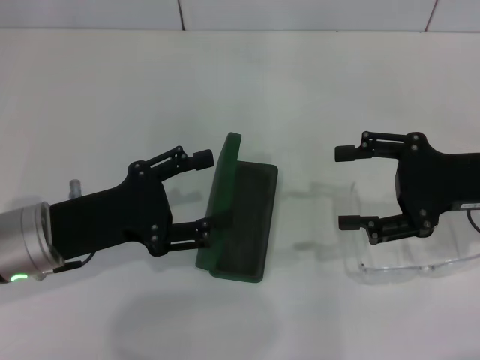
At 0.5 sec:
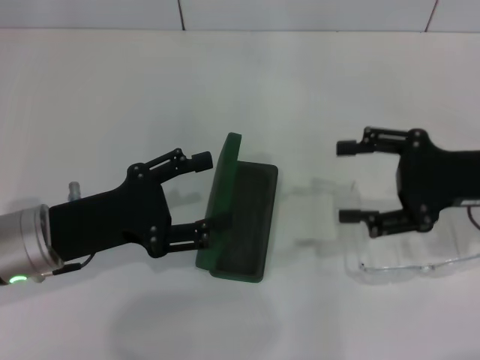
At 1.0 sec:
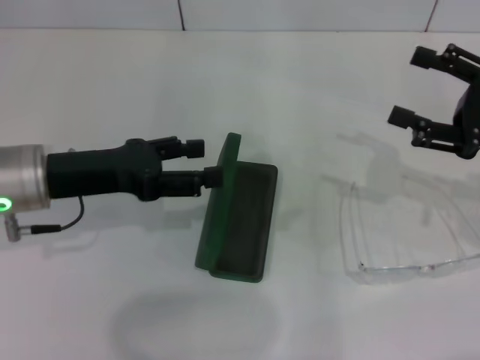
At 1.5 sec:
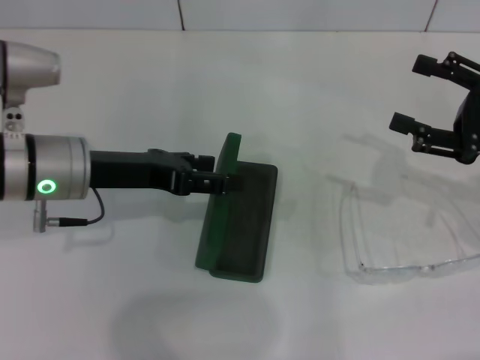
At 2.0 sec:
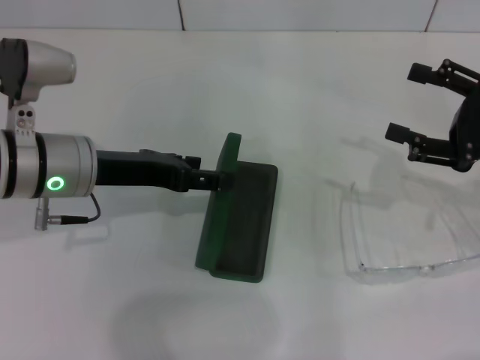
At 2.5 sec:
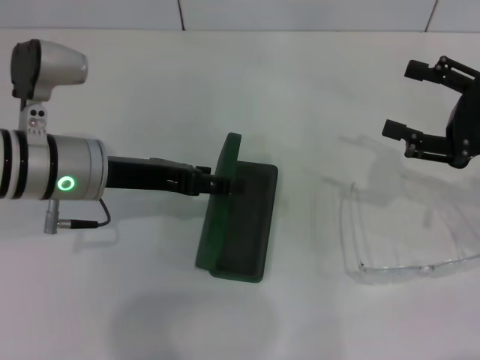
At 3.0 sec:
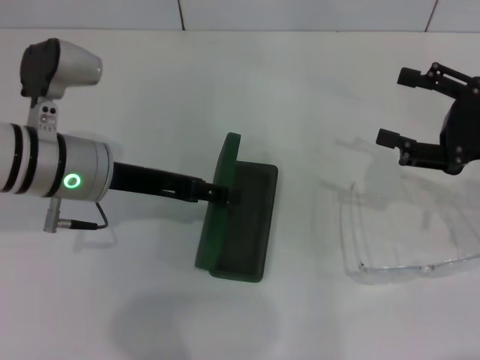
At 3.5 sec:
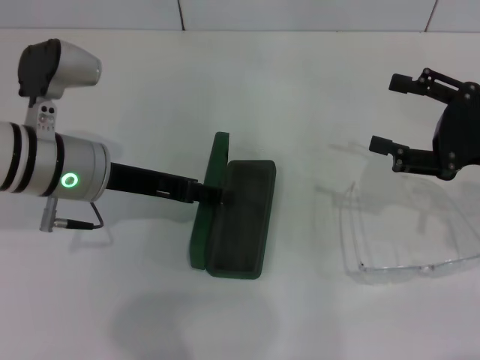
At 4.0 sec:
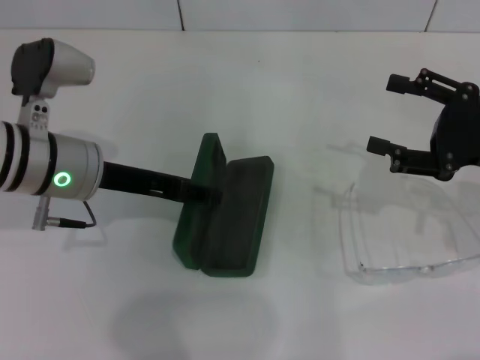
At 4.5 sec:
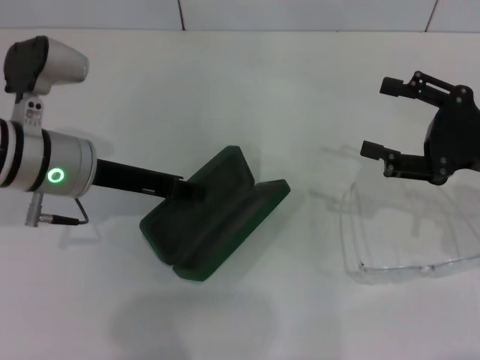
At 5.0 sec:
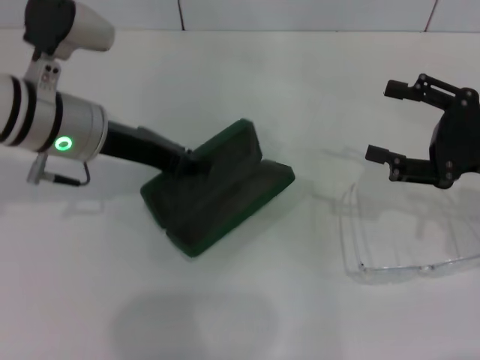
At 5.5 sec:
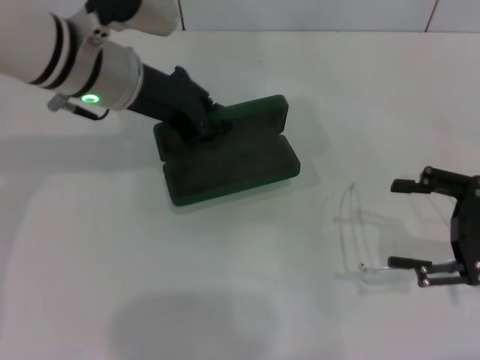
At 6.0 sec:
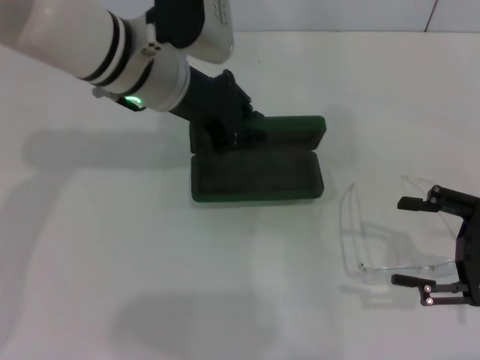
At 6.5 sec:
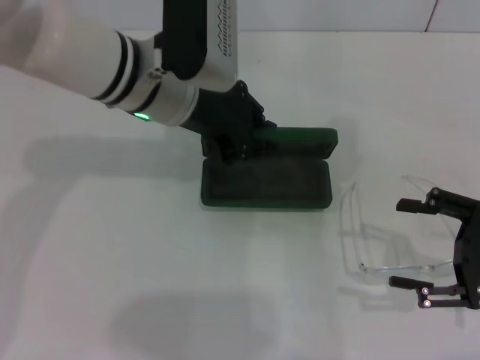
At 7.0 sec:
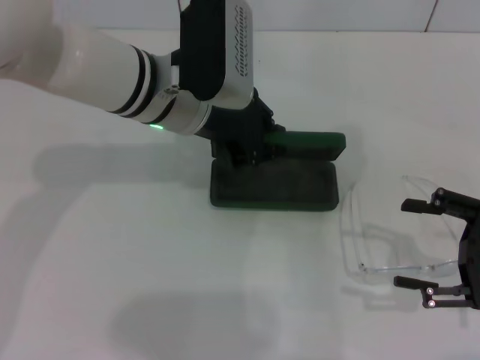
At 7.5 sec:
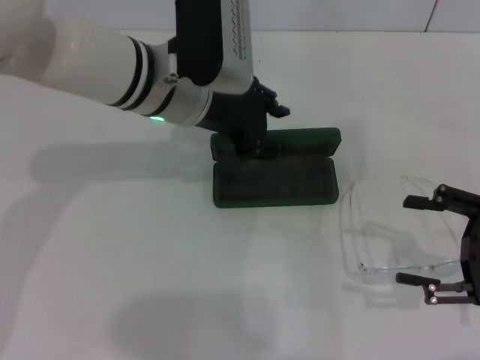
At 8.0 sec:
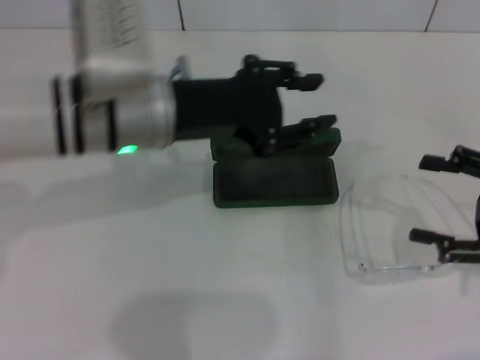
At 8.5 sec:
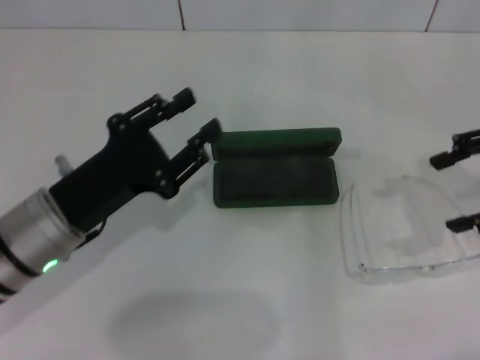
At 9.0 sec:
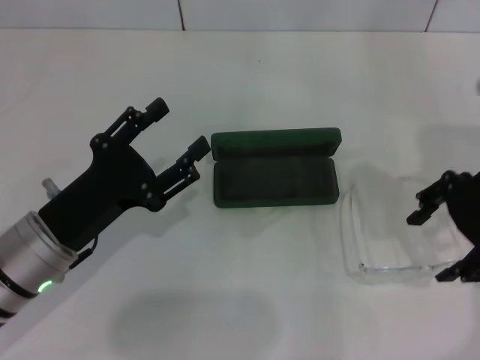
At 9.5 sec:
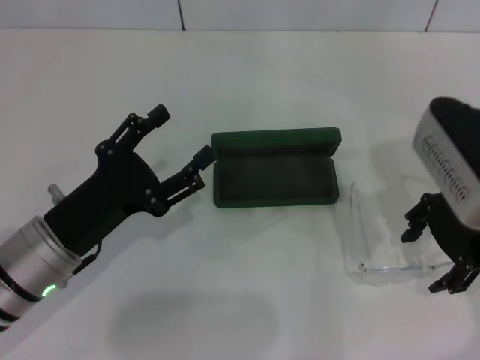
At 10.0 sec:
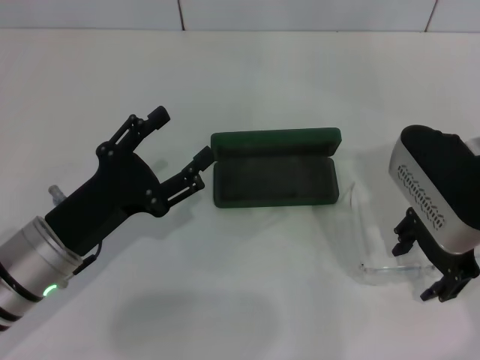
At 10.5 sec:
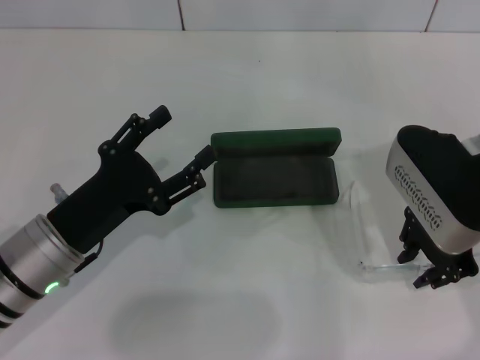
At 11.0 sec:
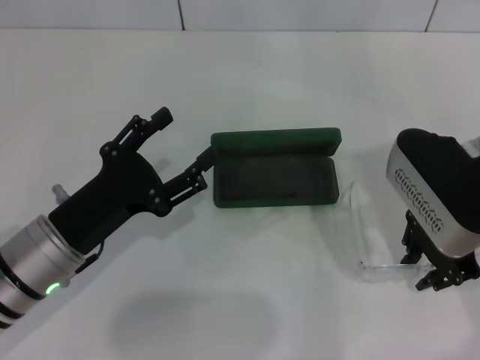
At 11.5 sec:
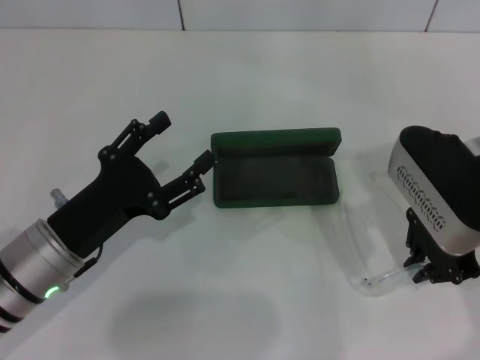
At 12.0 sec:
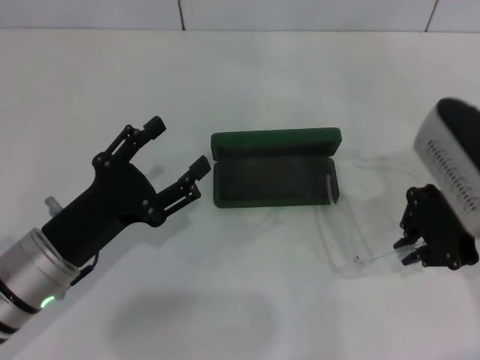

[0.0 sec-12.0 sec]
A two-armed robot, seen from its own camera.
Step, 0.0 sec to 4.0 sec: Grab the glasses case with your left hand.
Step, 4.5 sec to 7.0 sec: Place the glasses case in the center of the table with your left hand.
Step, 7.5 sec to 11.5 sec: Grab the eyeglass frame with your right hand.
0.0 sec to 2.0 sec: The left gripper heads forward, covering approximately 5 cm.
2.0 sec to 4.0 sec: The grippers move only a little.
4.0 sec to 6.0 sec: The right gripper moves backward, roughly 5 cm, while the left gripper is displaced to the right, upward and forward by roughly 10 cm, and closes.
6.0 sec to 8.0 sec: The left gripper goes roughly 5 cm backward, and opens up.
8.0 sec to 10.0 sec: The left gripper goes approximately 15 cm downward, backward and to the left, and opens up. Meanwhile the right gripper travels to the left and forward by roughly 15 cm.
10.0 sec to 12.0 sec: The right gripper closes its fingers.

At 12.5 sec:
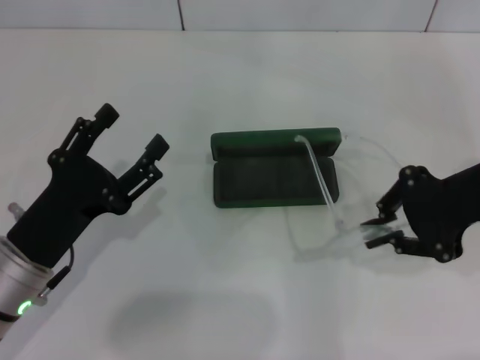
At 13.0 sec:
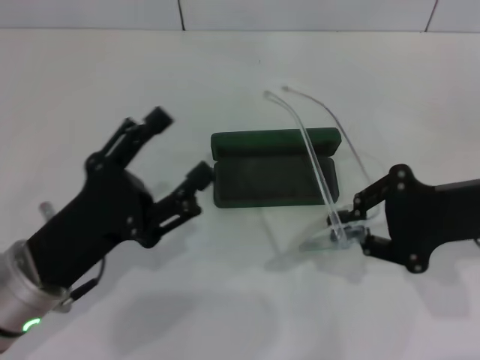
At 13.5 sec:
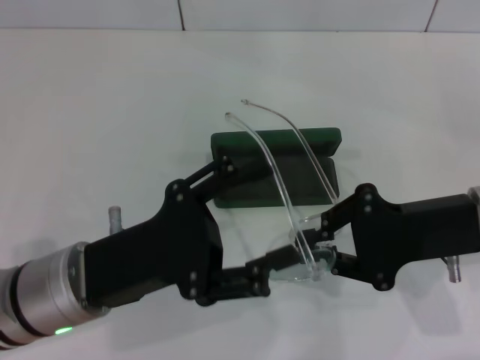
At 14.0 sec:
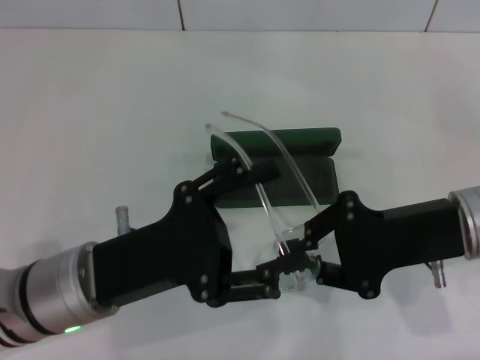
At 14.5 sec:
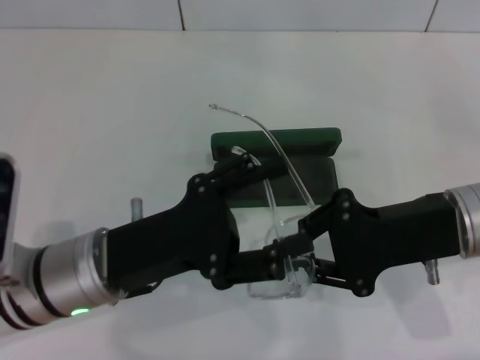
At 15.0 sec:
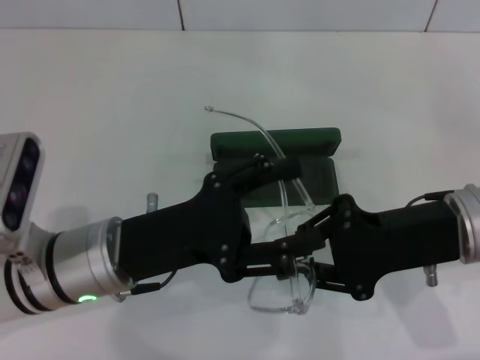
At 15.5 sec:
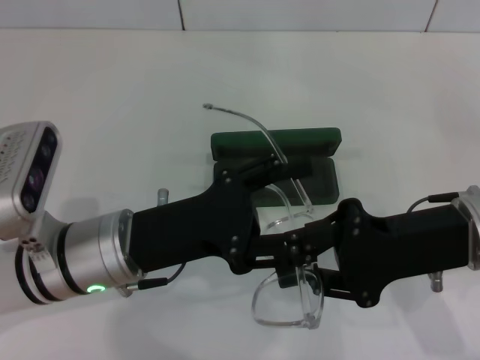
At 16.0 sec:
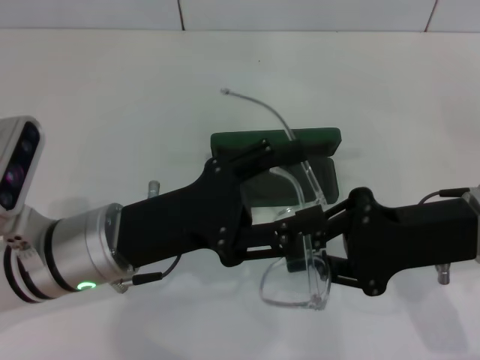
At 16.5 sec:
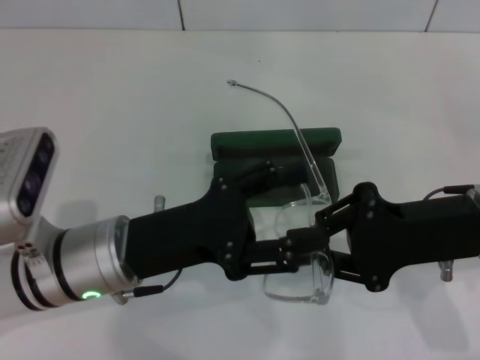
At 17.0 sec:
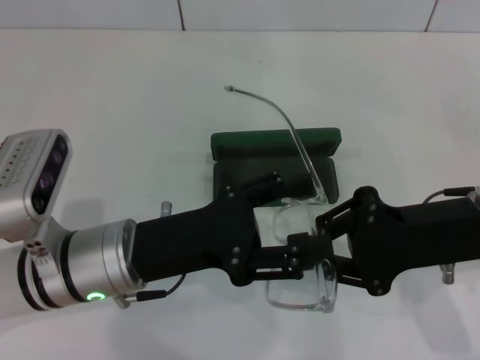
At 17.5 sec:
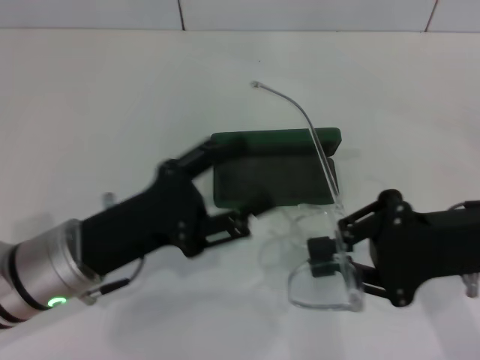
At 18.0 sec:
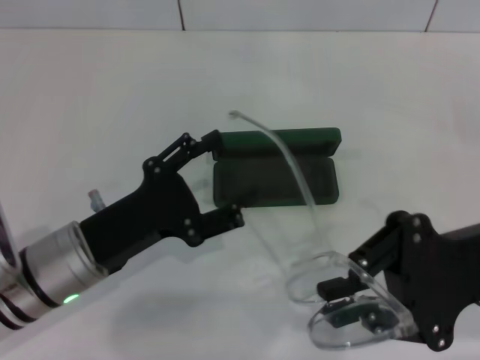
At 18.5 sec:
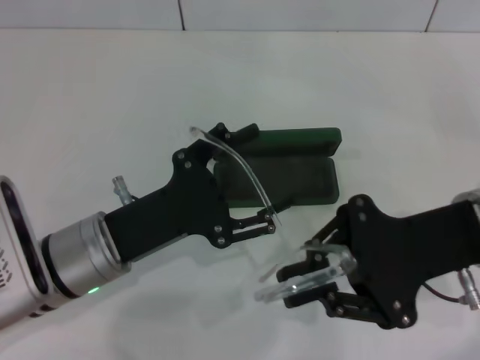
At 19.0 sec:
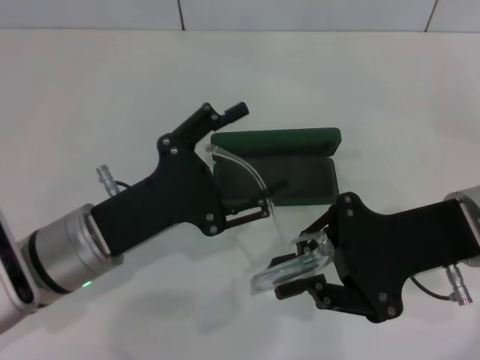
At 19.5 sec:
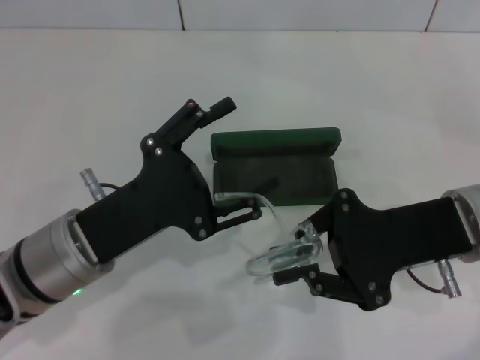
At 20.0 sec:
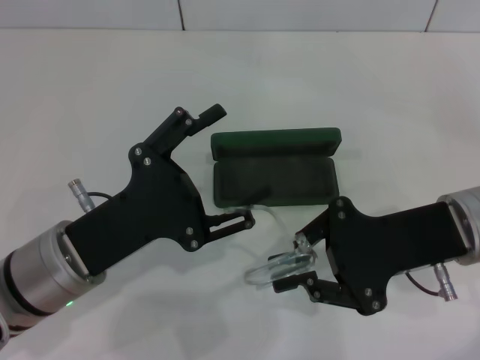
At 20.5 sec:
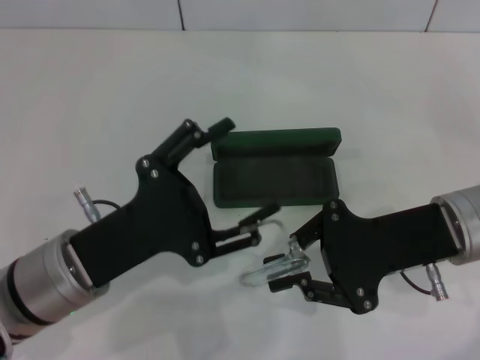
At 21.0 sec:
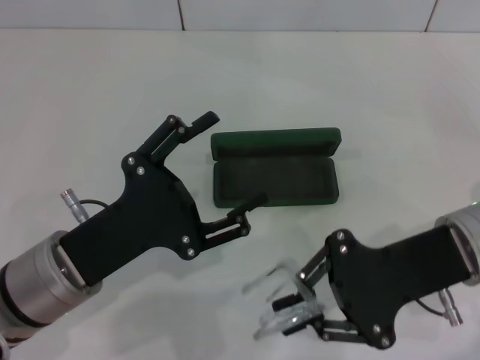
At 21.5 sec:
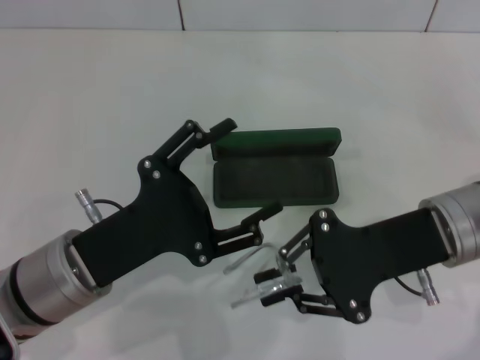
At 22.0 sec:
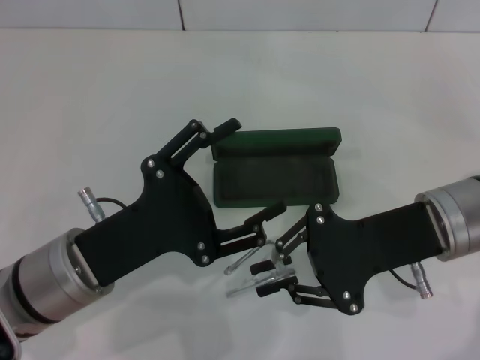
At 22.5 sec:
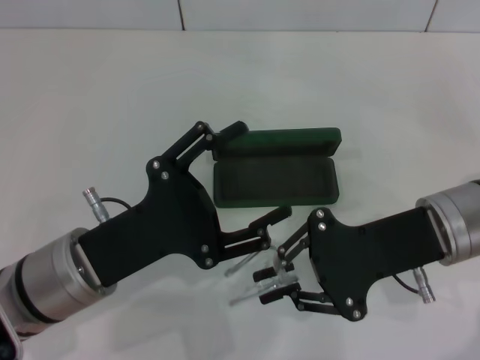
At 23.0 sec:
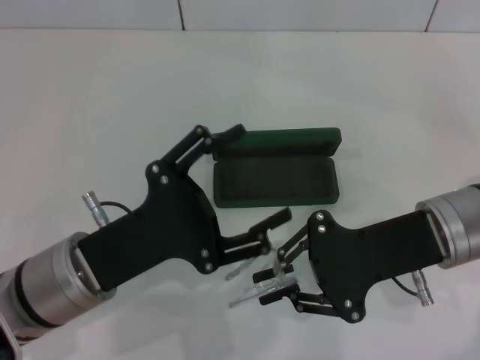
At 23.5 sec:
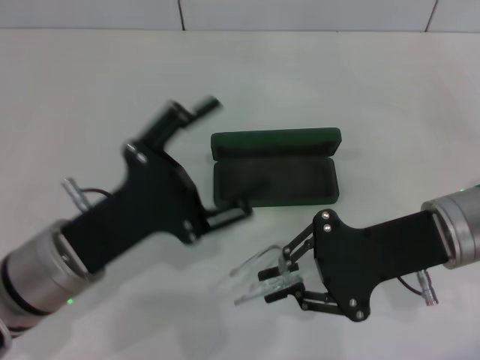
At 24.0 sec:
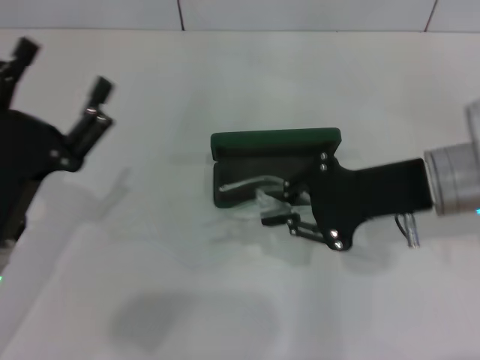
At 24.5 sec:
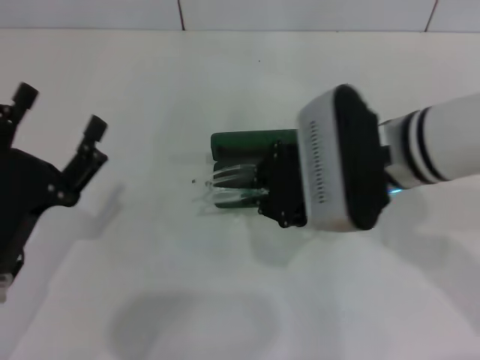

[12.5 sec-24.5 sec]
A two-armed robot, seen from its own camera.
Step, 12.5 sec to 22.5 sec: Fold the frame with your left hand.
12.5 sec to 14.5 sec: The left gripper heads to the right, covering approximately 5 cm, while the right gripper is displaced downward by roughly 5 cm.
14.5 sec to 16.5 sec: The grippers make only small movements.
18.5 sec to 22.5 sec: The grippers stay close to where they were, moving slightly.
22.5 sec to 24.5 sec: Both grippers move to the left, about 5 cm.

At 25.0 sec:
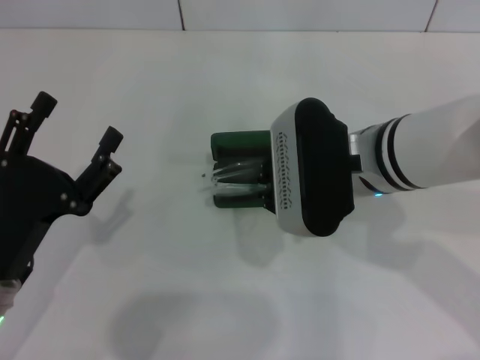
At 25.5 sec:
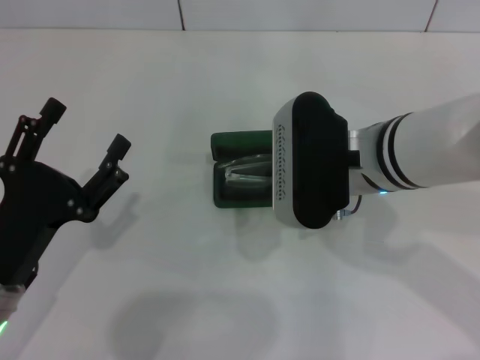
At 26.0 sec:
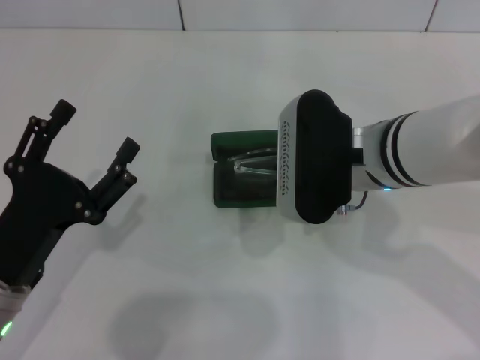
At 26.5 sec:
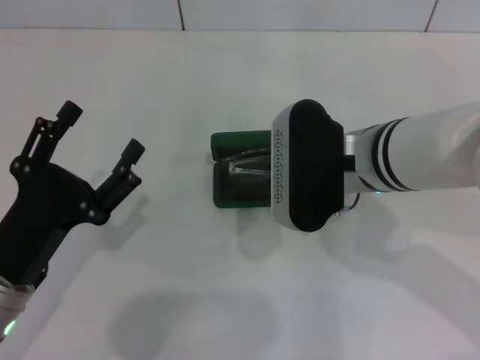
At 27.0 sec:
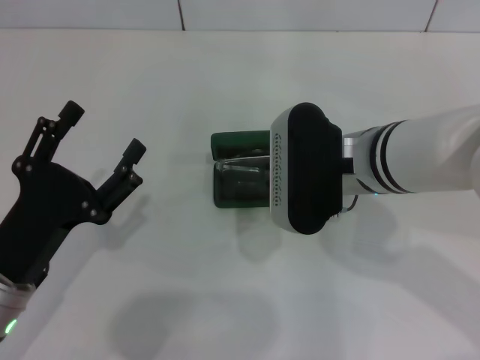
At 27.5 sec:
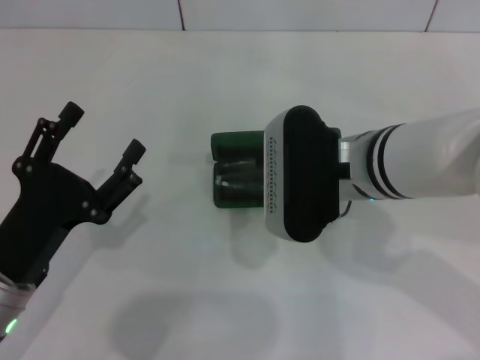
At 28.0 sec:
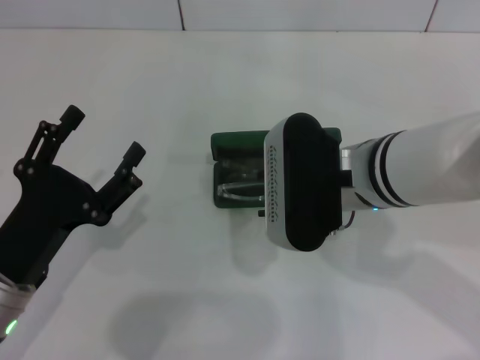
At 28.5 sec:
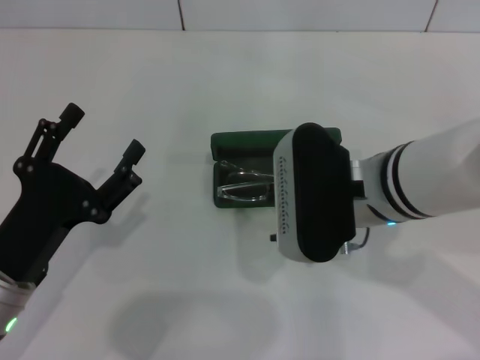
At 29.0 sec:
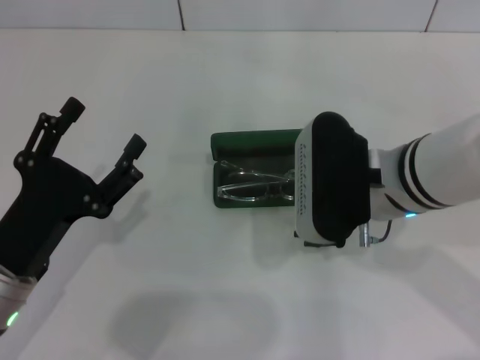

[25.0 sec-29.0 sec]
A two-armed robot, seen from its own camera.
Step, 25.0 sec to 28.0 sec: Put the glasses into the case with your right hand.
25.0 sec to 27.0 sec: The grippers stay close to where they were, moving slightly.
27.0 sec to 29.0 sec: The right gripper opens up.
